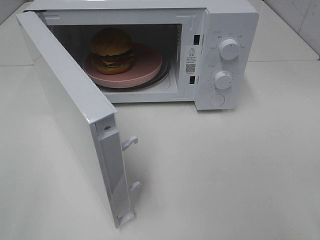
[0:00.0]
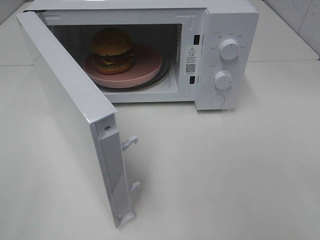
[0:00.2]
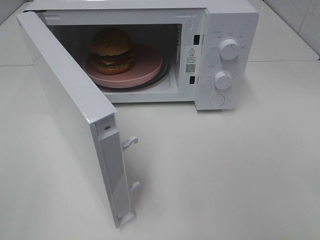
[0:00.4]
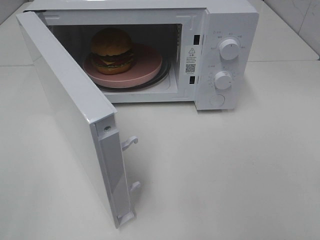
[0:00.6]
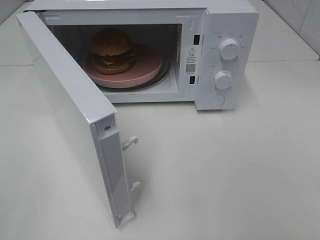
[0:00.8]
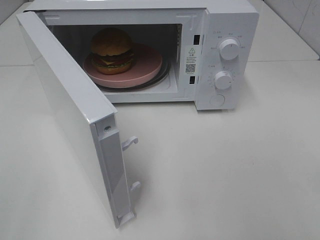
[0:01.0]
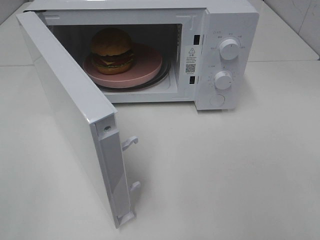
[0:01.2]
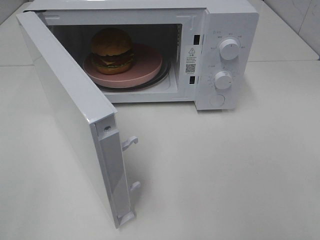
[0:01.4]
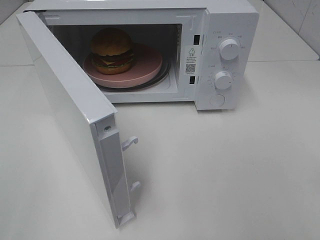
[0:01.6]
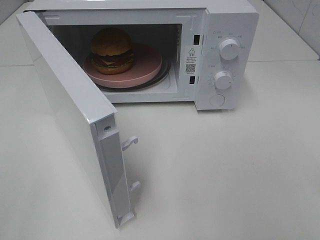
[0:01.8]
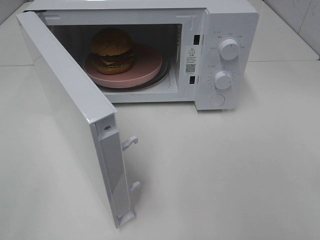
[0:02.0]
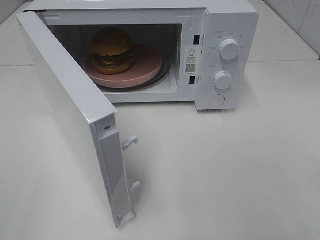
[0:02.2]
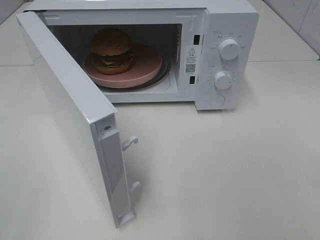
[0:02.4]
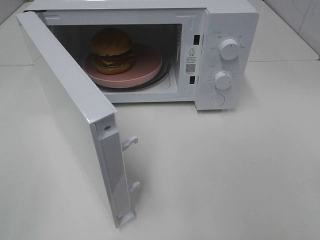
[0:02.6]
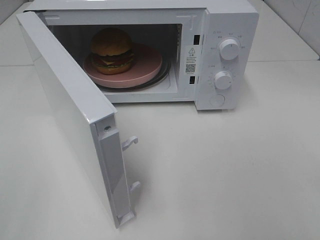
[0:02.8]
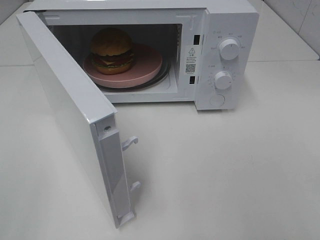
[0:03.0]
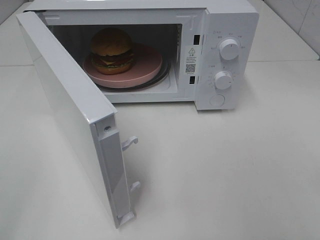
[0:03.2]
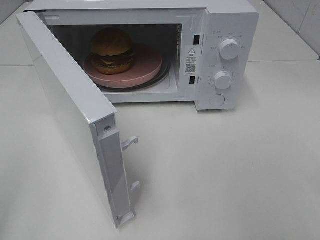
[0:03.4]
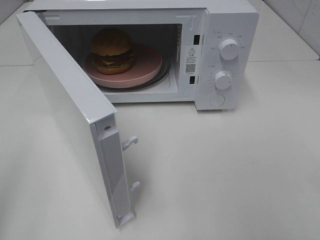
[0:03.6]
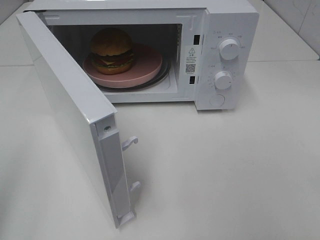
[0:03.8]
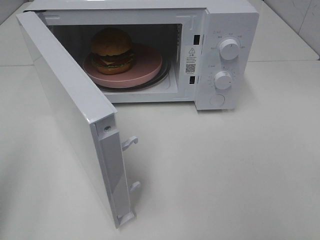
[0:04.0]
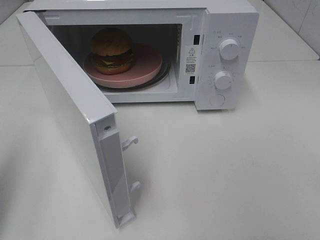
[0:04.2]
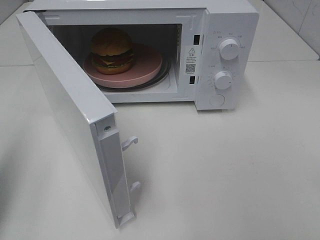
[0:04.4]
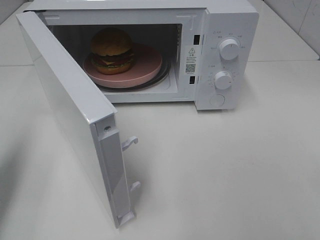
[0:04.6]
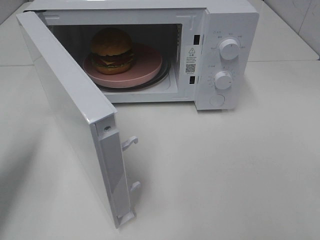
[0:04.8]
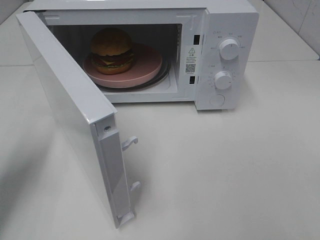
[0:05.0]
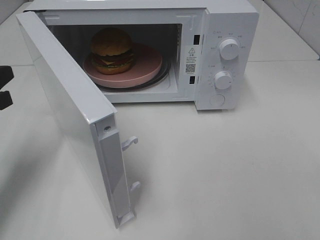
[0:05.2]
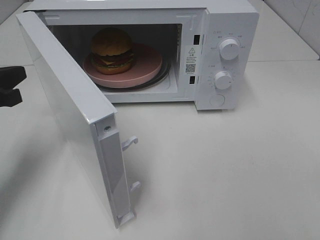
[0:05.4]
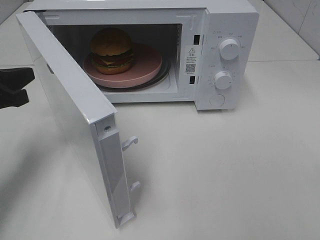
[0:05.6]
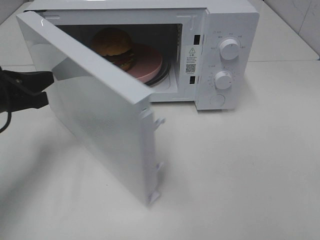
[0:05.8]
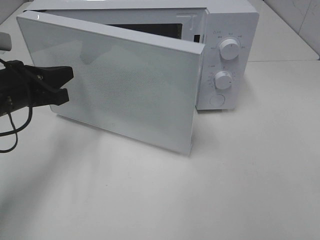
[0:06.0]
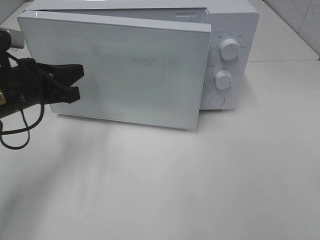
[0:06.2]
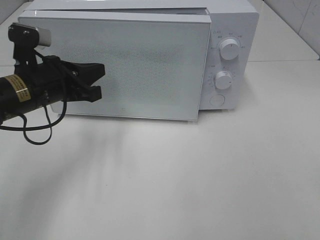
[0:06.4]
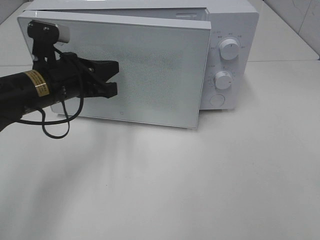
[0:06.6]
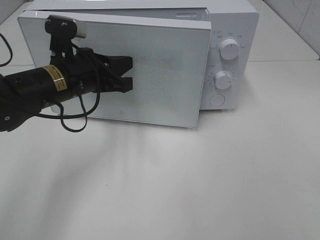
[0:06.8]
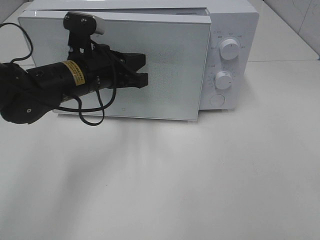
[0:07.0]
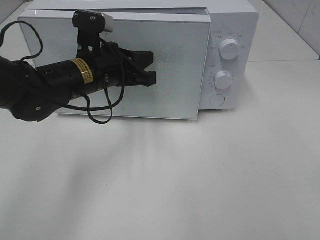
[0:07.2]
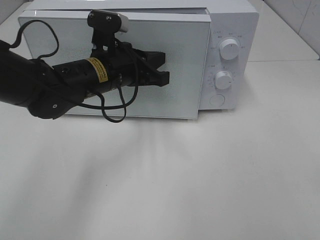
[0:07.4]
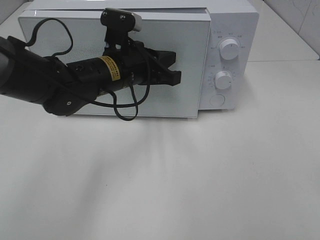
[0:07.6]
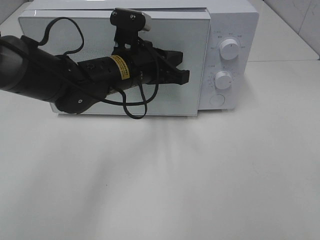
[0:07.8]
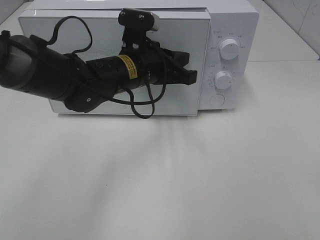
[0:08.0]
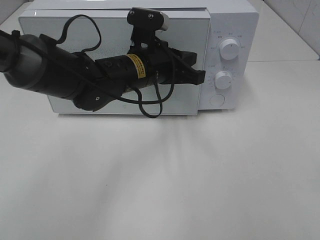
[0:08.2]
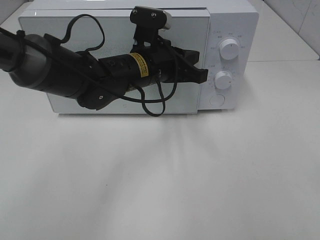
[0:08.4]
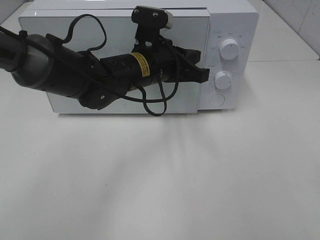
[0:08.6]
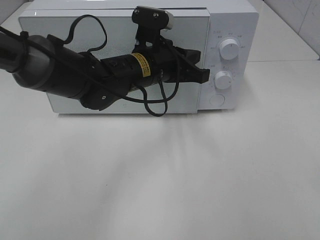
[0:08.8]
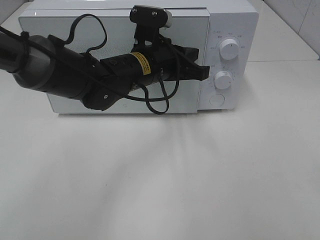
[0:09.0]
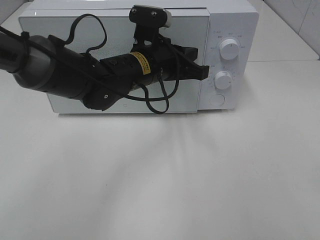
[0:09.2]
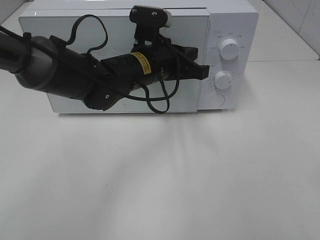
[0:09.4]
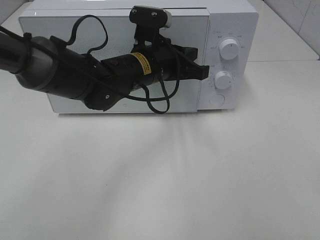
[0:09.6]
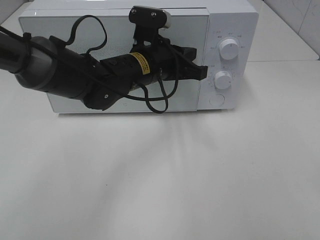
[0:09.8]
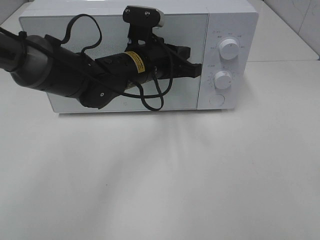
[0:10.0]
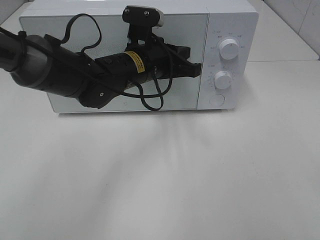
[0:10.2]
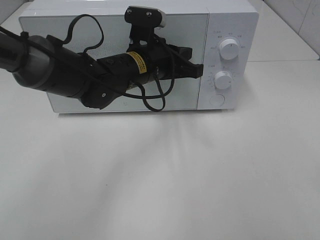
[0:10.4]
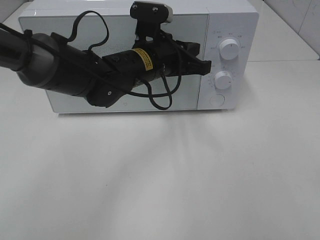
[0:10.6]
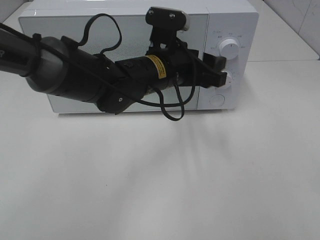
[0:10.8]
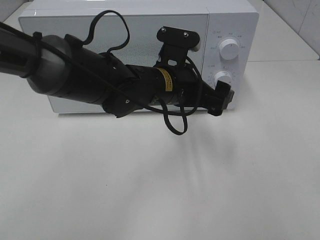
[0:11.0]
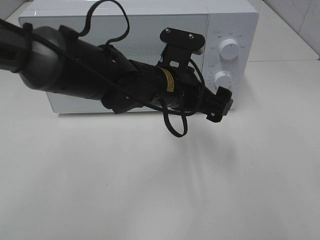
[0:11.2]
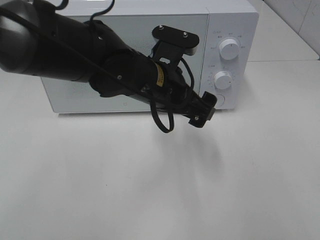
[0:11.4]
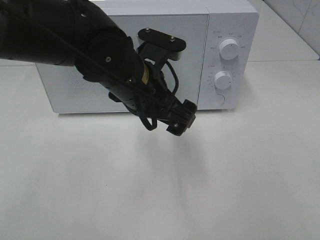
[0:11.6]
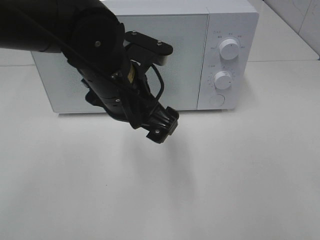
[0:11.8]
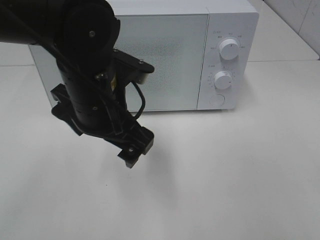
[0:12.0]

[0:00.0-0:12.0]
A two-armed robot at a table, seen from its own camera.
Task of the whole recording: Heat the burger.
Step, 0:00.0 to 0:10.0: Left hand: close the microwave door.
0:01.6 to 0:03.0: The two grippers keep their place.
0:03.0 to 0:04.4: The left gripper moves forward, some 15 cm, and closes up.
0:04.4 to 0:06.0: The left gripper heads forward, to the right and downward, covering some 20 cm.
0:06.0 to 0:07.6: The left gripper heads to the right, covering some 15 cm.
0:07.6 to 0:10.4: The grippers make only small movements.
0:10.4 to 0:12.0: The left gripper is displaced backward by about 10 cm, and opens up.

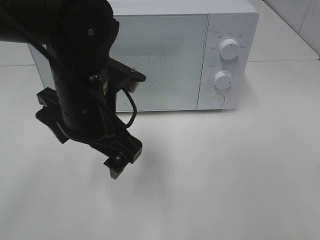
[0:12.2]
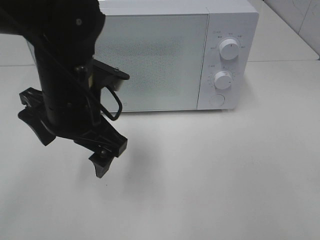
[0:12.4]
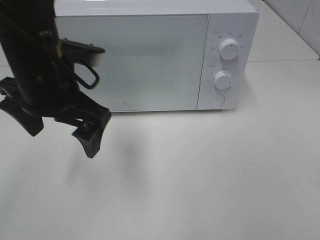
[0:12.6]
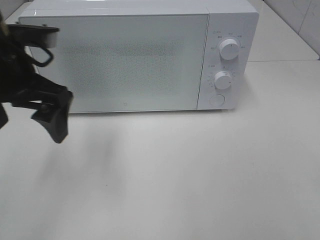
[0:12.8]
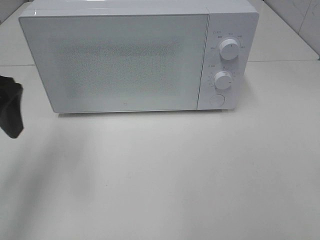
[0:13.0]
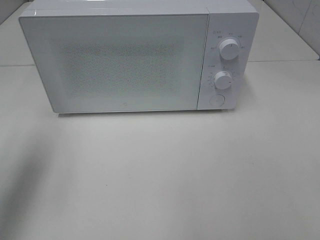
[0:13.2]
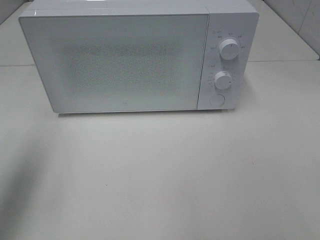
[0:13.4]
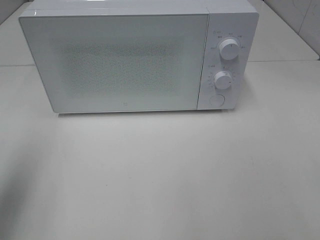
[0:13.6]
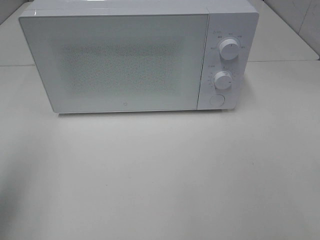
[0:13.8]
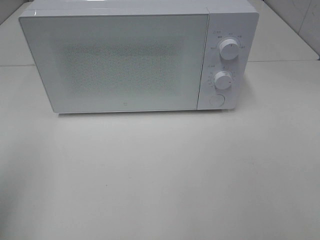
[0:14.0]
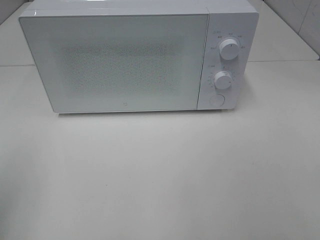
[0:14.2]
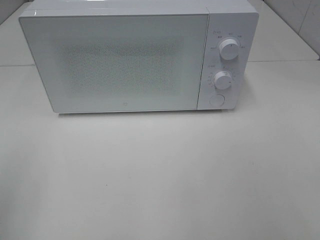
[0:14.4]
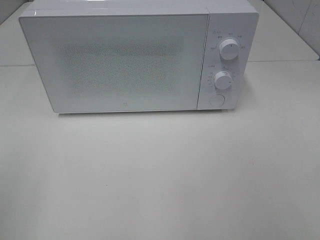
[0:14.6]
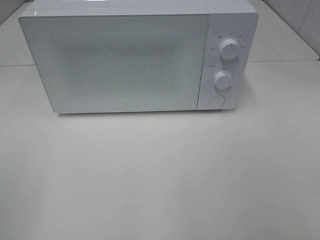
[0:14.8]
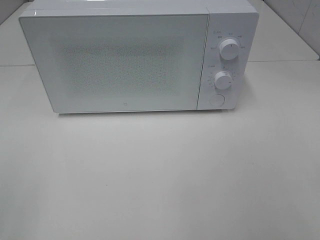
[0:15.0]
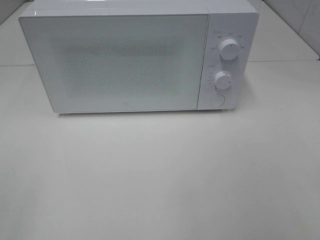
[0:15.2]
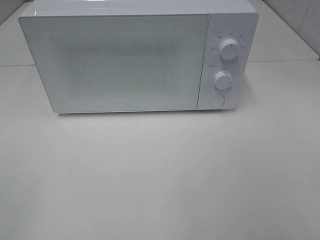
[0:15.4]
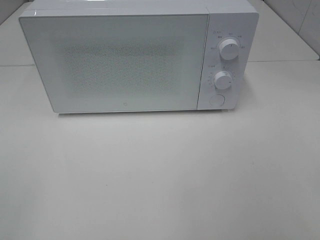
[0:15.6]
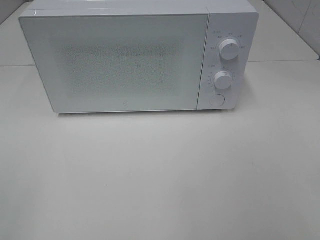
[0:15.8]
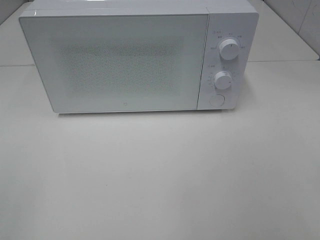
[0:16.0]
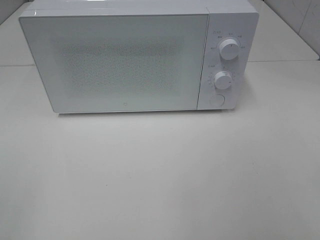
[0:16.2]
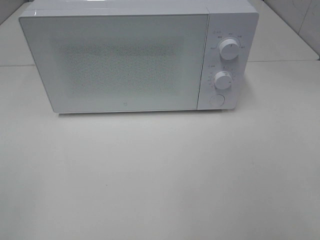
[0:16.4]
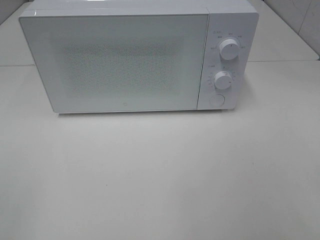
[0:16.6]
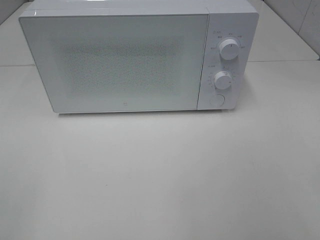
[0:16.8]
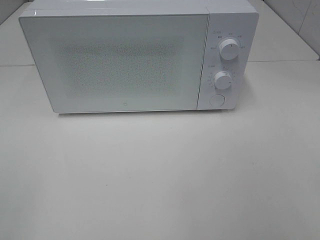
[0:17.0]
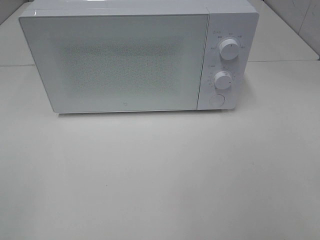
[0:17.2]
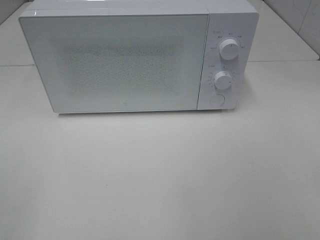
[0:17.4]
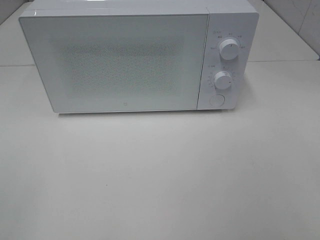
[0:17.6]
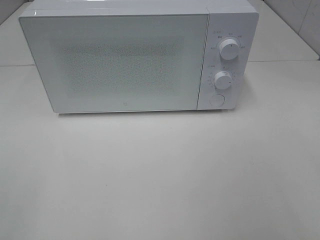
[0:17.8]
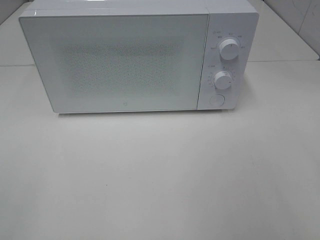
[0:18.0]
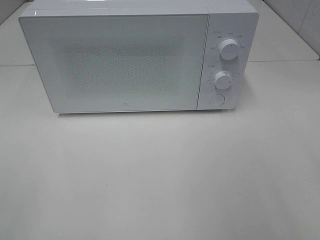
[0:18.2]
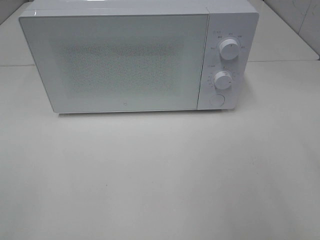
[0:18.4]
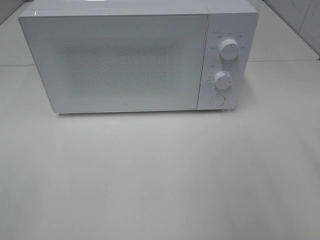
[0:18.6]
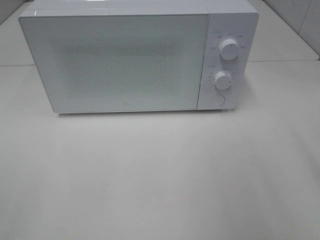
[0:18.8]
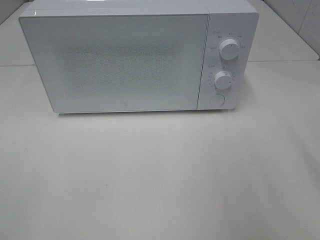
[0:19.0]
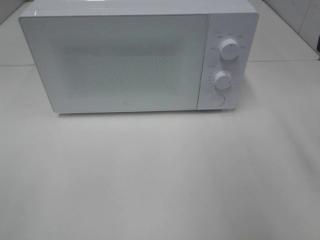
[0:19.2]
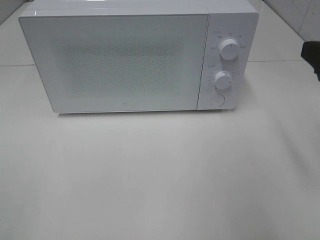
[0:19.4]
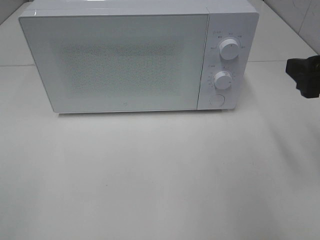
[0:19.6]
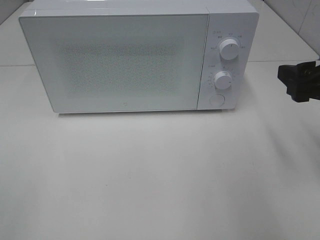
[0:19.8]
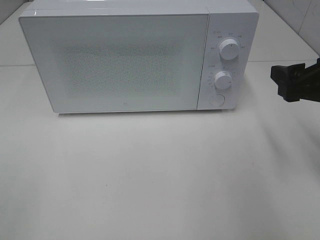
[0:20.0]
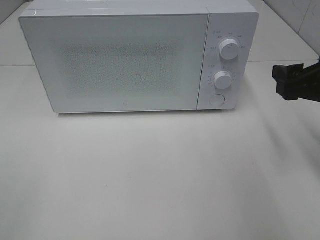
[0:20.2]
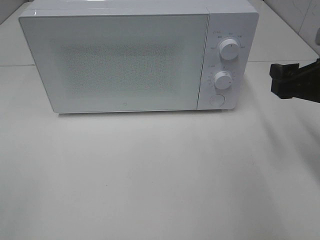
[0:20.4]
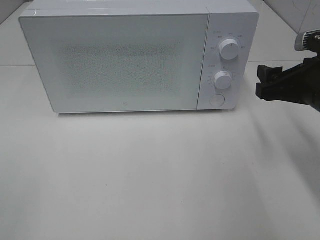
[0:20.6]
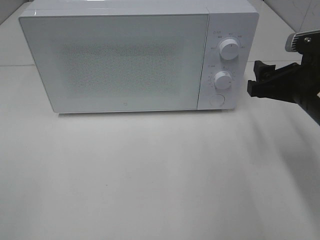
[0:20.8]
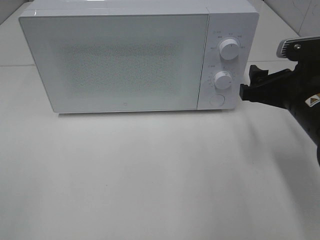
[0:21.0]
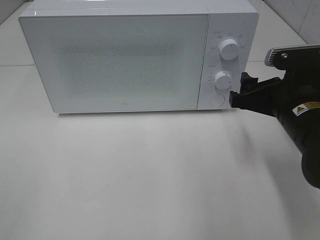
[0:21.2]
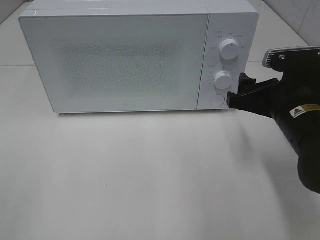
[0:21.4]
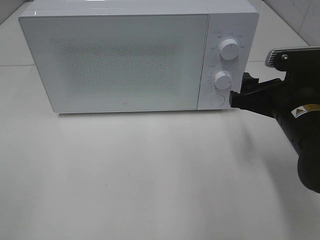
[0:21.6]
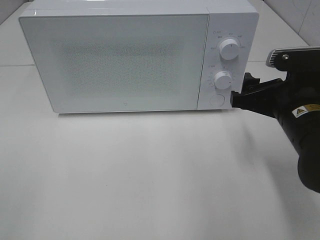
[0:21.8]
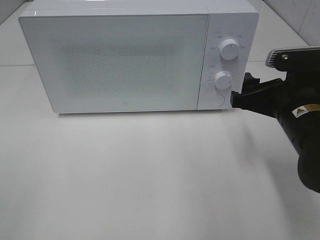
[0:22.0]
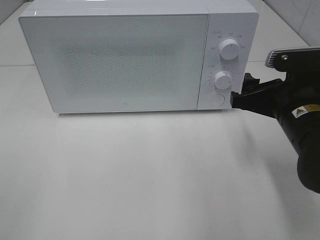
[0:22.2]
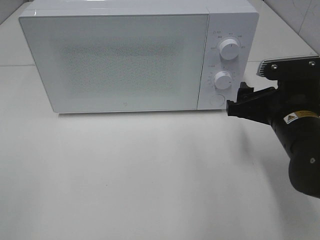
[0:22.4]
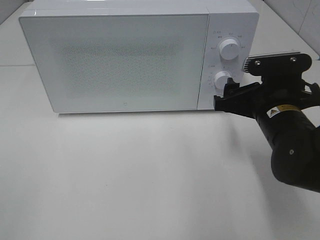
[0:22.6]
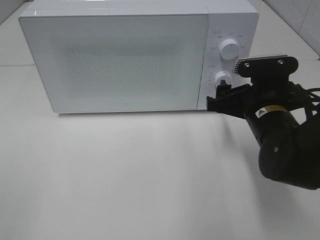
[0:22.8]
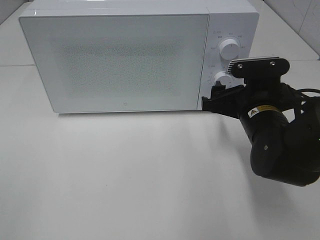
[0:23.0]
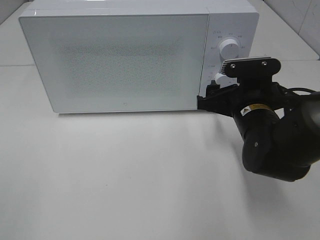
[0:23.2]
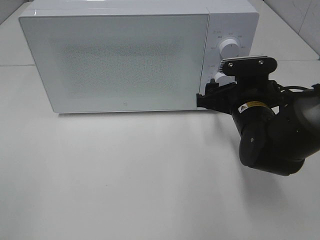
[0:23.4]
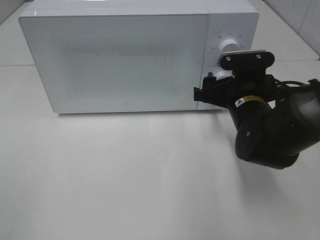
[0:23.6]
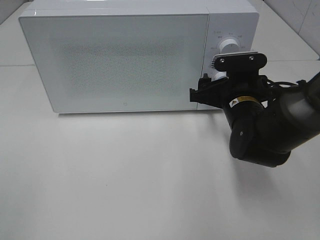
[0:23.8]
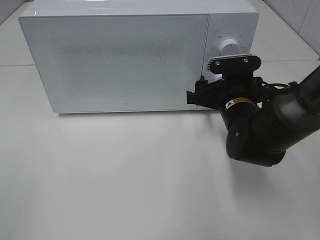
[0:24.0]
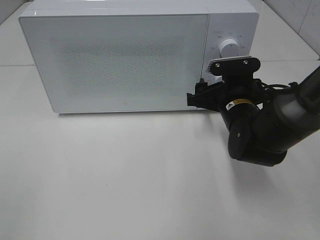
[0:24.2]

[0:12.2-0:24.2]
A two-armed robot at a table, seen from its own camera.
Task of the whole recording: Heat the burger.
0:12.2 to 0:13.8: The left gripper shifts roughly 25 cm to the left and backward.
0:13.8 to 0:15.2: The left gripper moves backward, about 15 cm.
0:15.2 to 0:16.6: Both grippers stay put.
0:18.2 to 0:19.8: The right gripper moves forward and downward, some 15 cm.
0:19.8 to 0:21.2: The right gripper shifts some 10 cm to the left and downward.
0:21.2 to 0:22.6: The grippers make only small movements.
0:22.6 to 0:24.2: The right gripper moves forward, some 5 cm.
